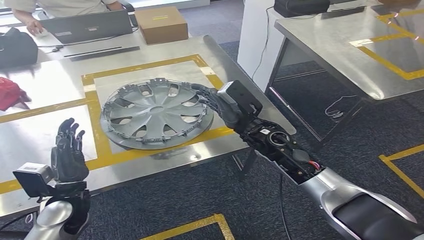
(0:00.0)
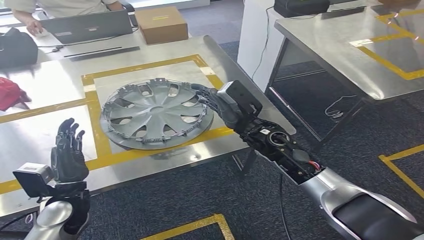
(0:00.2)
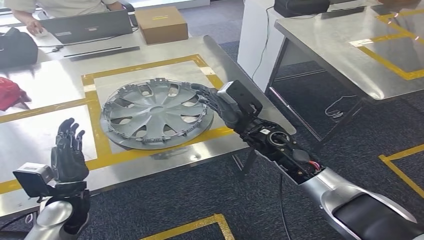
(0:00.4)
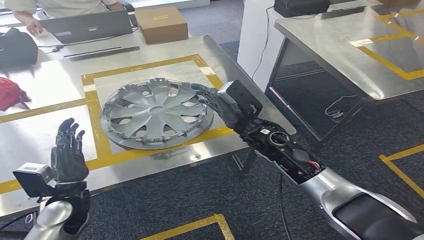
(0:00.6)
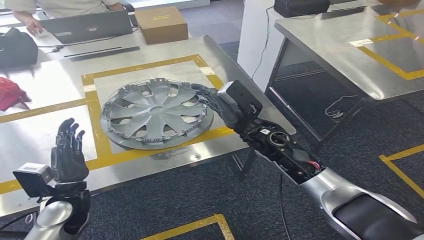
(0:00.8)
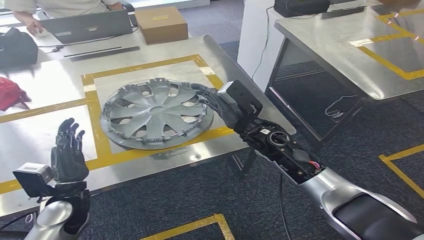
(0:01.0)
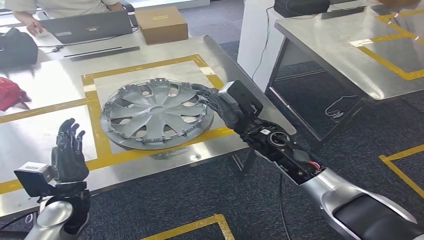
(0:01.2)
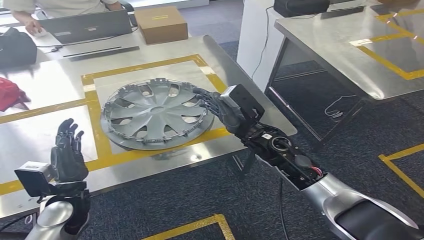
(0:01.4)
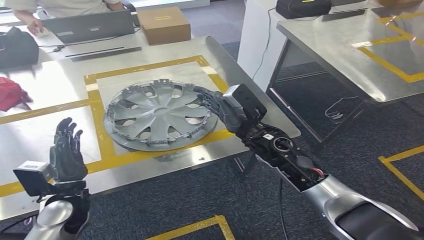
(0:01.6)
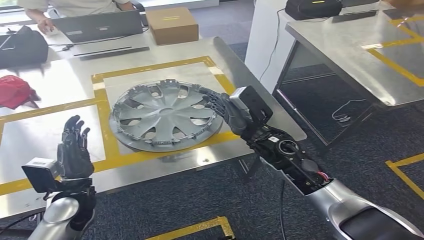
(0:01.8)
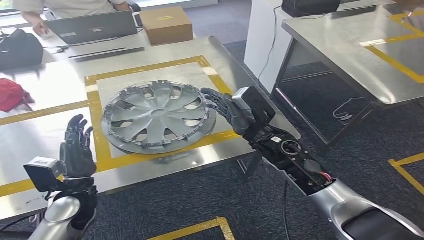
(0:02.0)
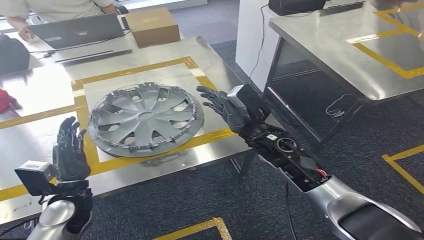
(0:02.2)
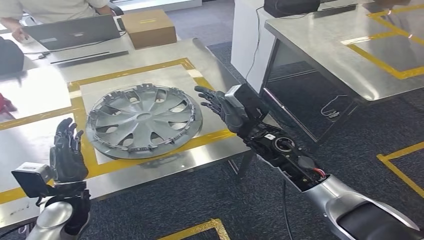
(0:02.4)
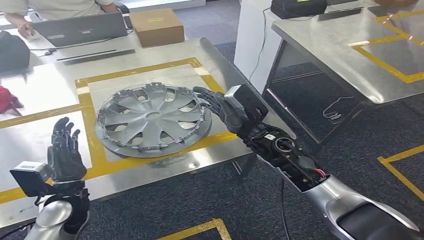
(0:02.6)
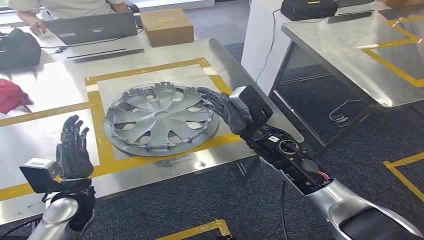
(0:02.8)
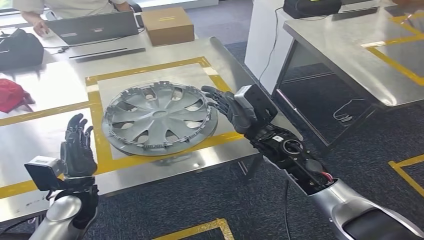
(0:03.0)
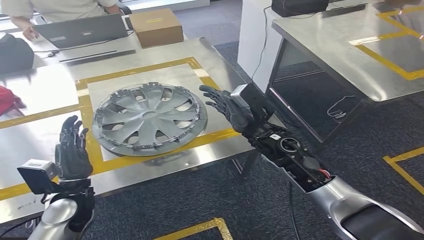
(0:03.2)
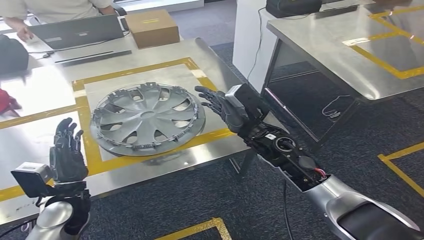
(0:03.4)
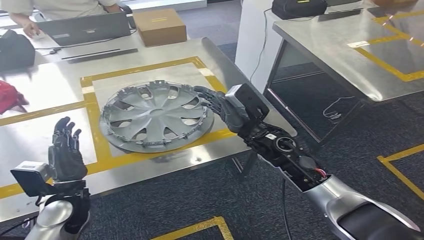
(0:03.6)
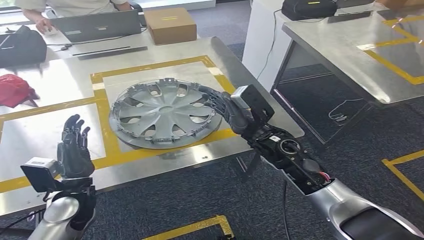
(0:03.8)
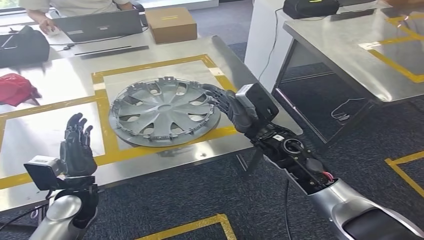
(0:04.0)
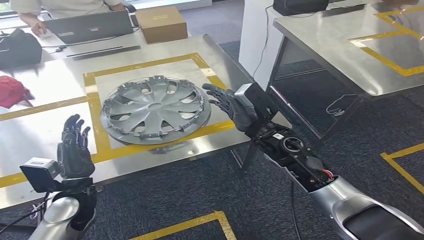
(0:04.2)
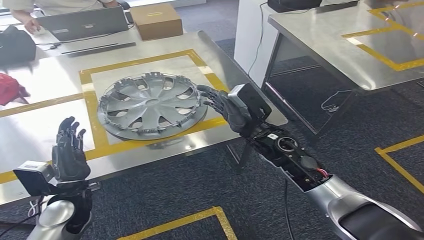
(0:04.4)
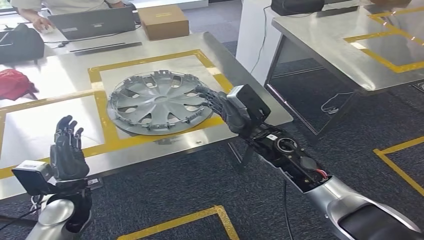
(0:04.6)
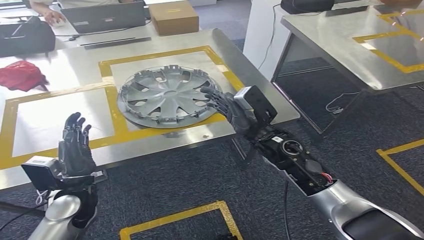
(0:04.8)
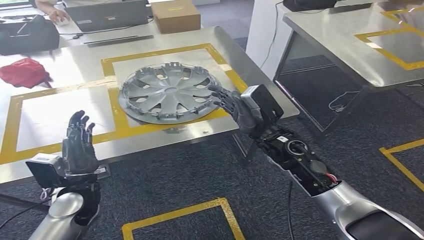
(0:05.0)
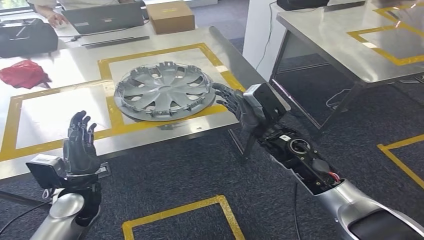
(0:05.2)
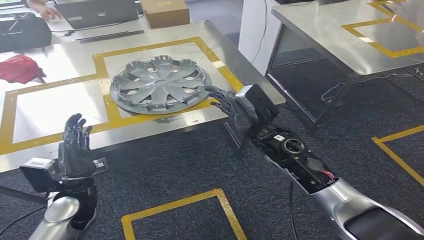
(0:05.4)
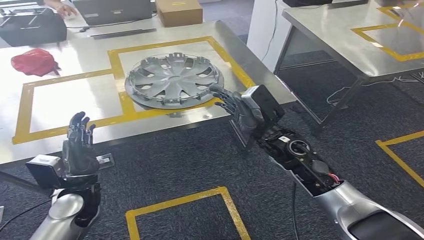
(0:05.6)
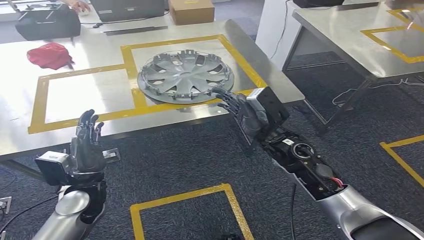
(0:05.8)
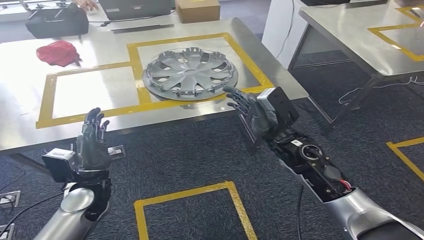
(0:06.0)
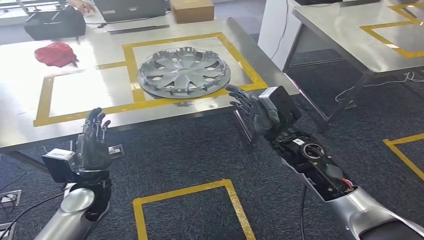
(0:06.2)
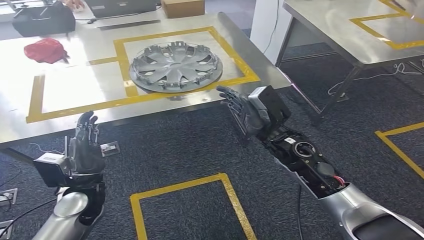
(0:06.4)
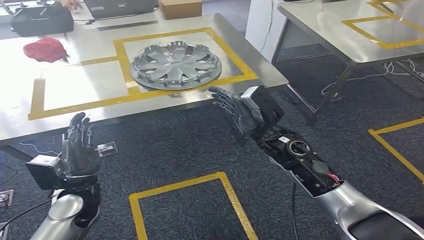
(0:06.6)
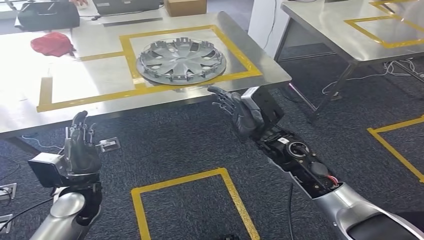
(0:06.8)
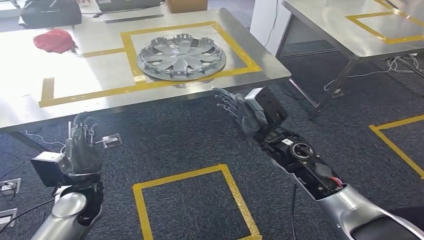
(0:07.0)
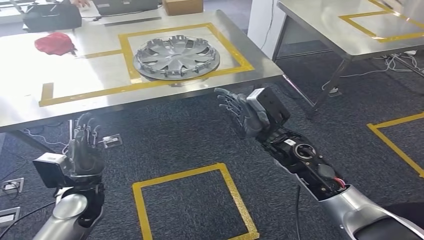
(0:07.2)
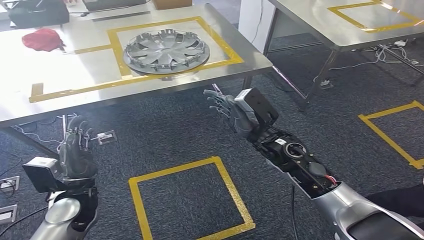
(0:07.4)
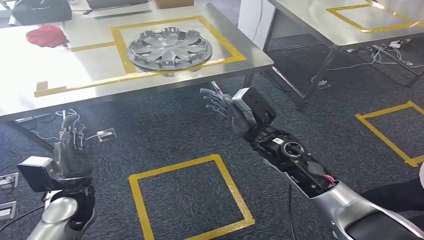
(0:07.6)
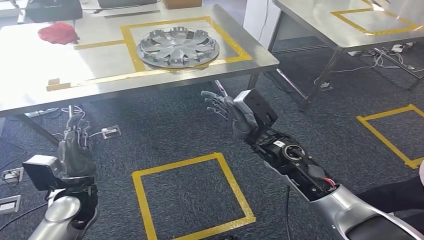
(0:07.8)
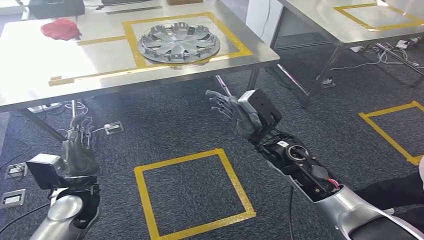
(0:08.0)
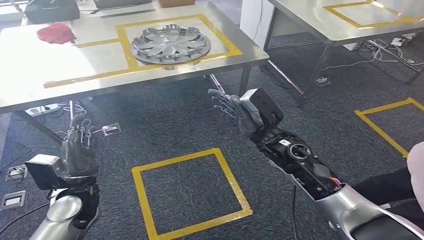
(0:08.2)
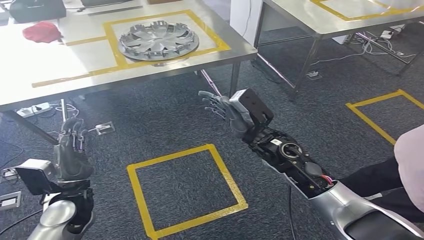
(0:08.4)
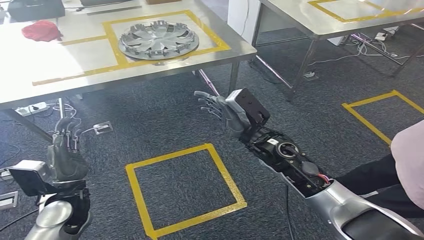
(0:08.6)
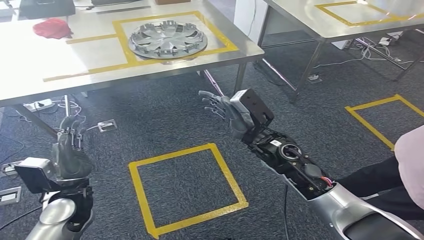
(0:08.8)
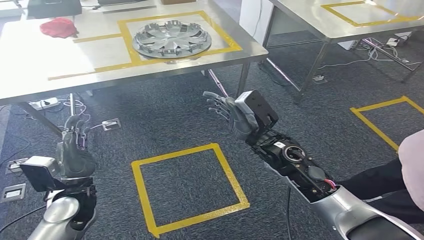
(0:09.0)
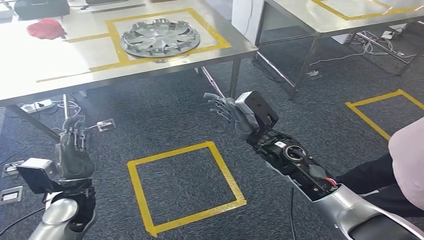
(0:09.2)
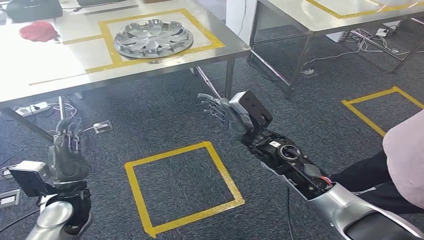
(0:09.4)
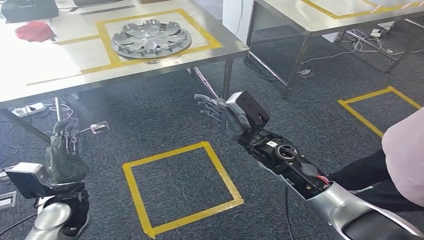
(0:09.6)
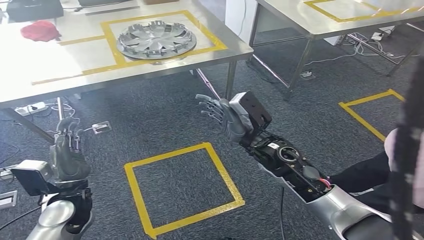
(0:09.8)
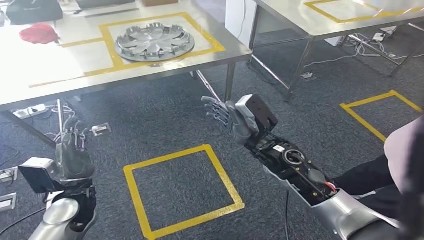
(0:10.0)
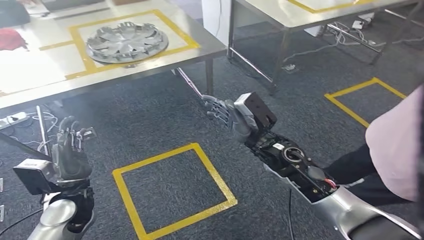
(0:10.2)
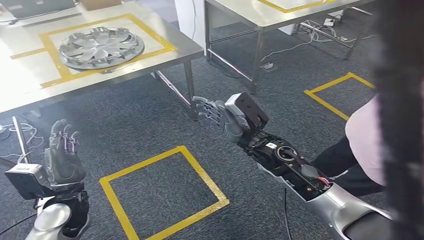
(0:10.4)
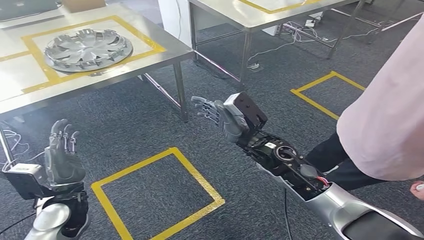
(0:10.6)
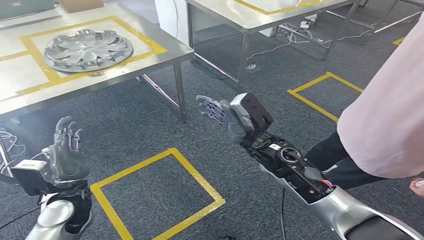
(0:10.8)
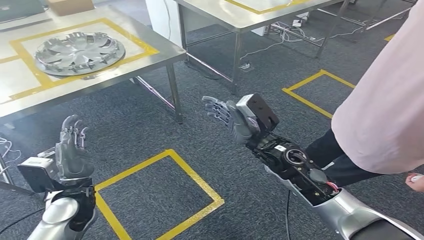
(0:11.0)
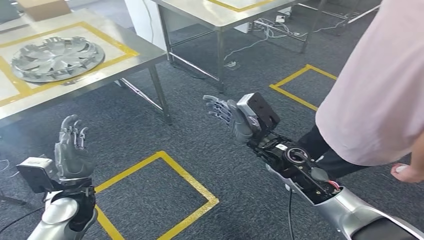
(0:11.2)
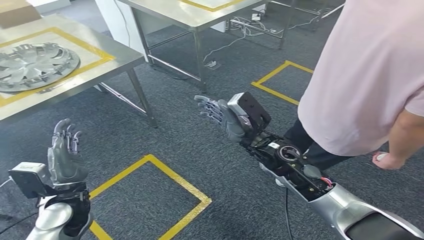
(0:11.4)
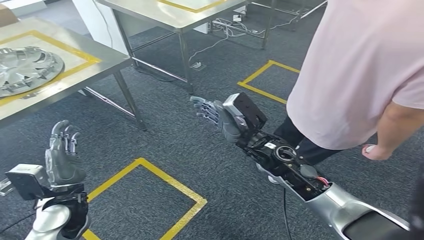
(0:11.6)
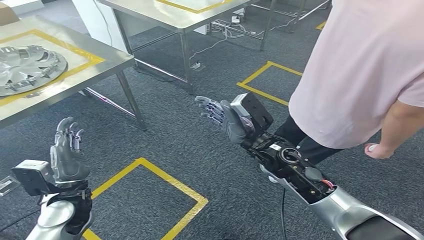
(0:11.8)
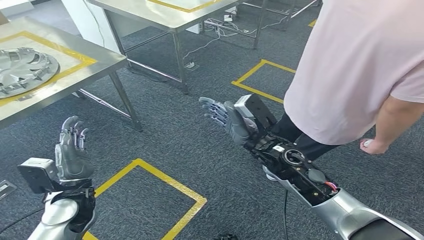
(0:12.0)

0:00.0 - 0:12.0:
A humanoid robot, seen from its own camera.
0:00.0 - 0:01.6: The hands move only a little.

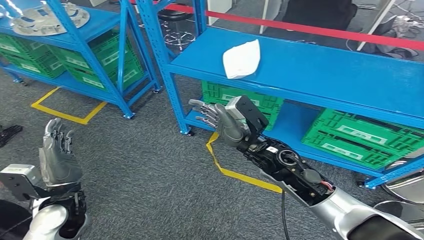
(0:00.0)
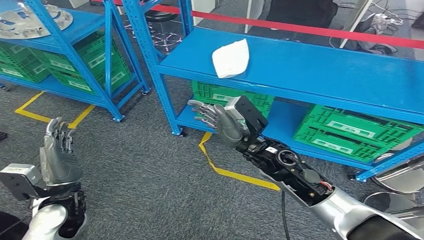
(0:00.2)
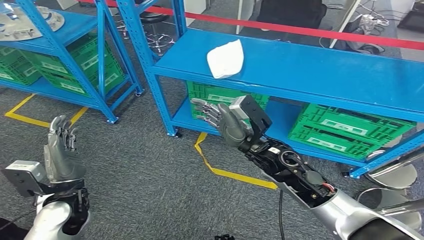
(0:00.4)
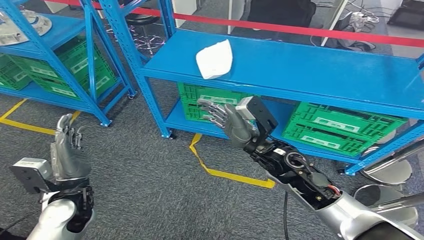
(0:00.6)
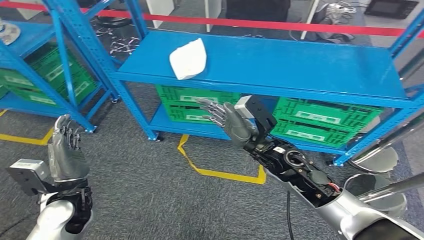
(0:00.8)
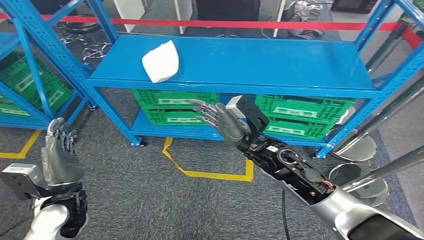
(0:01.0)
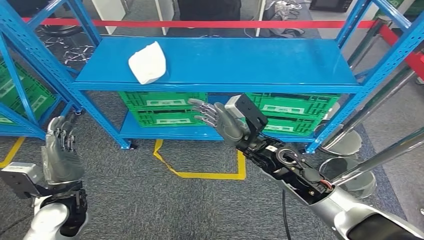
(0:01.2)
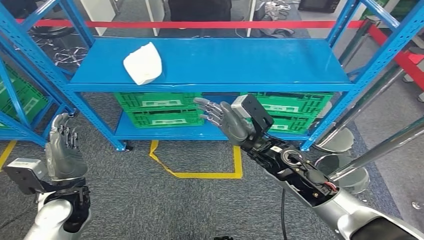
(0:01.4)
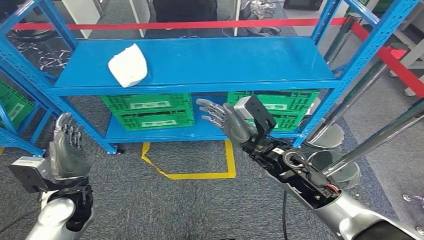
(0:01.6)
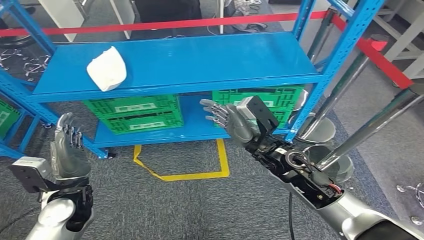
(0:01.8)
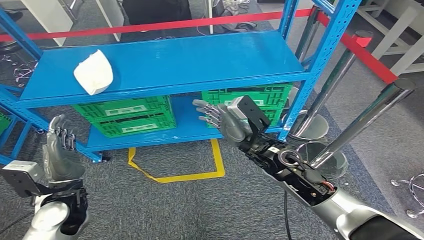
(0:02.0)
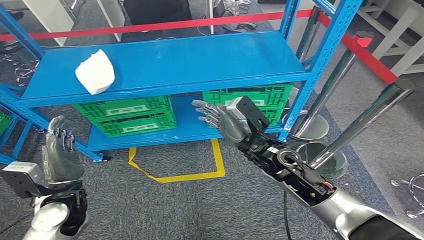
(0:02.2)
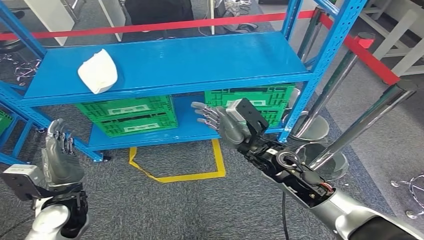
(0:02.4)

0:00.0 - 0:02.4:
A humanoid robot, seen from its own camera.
Step, 0:00.0 - 0:02.4: Move to the initial position at the workbench.

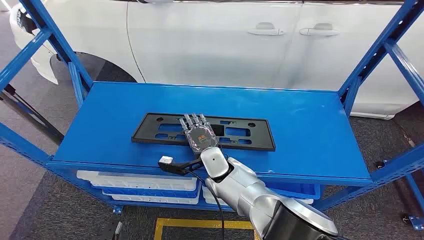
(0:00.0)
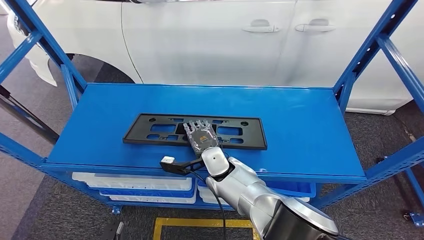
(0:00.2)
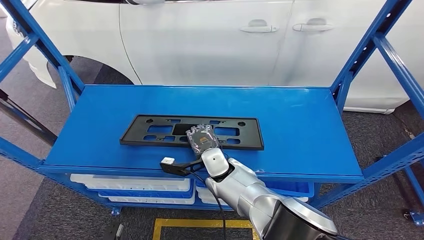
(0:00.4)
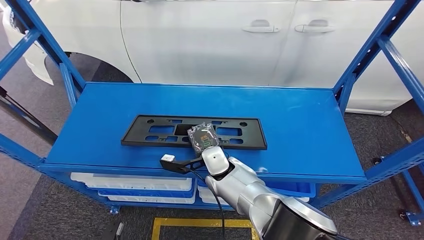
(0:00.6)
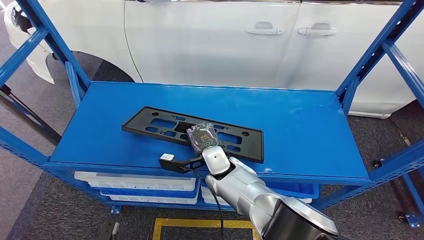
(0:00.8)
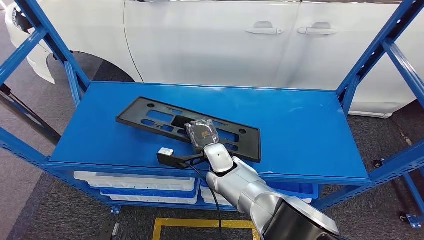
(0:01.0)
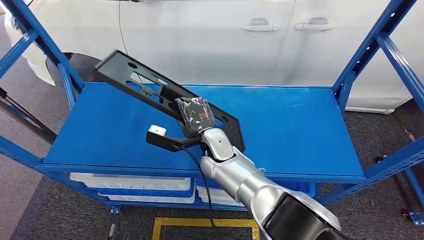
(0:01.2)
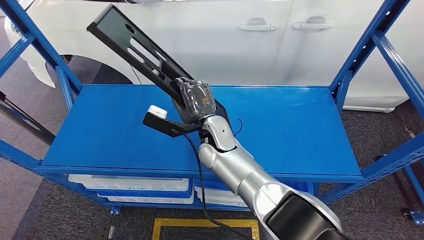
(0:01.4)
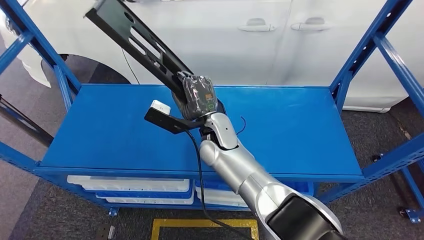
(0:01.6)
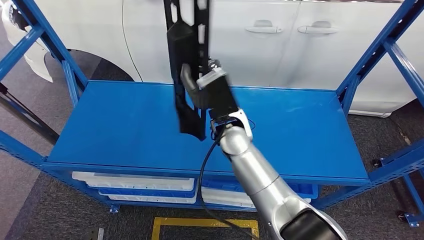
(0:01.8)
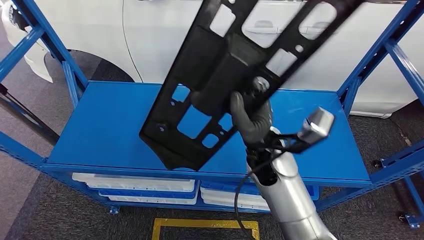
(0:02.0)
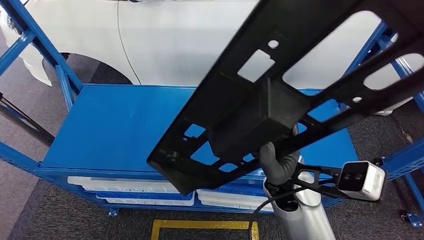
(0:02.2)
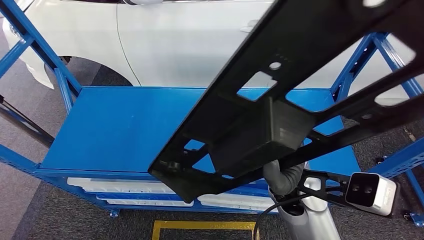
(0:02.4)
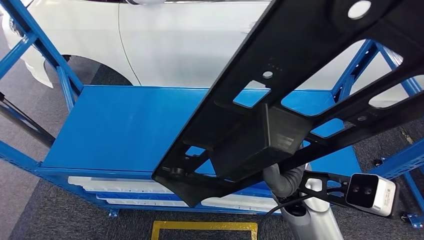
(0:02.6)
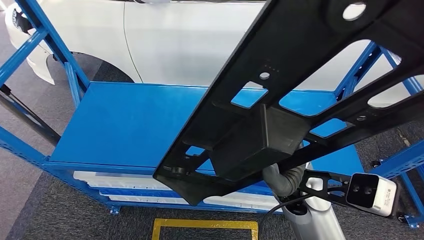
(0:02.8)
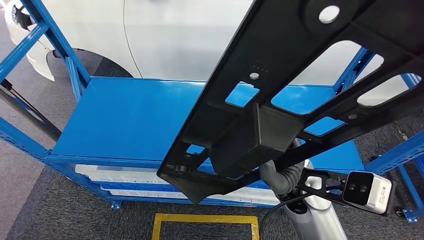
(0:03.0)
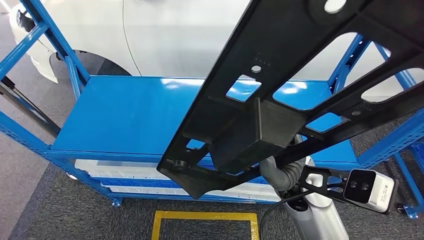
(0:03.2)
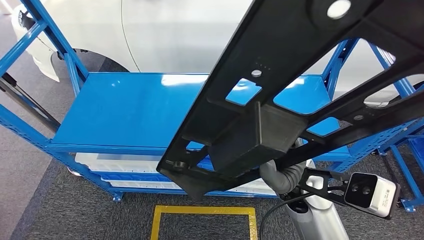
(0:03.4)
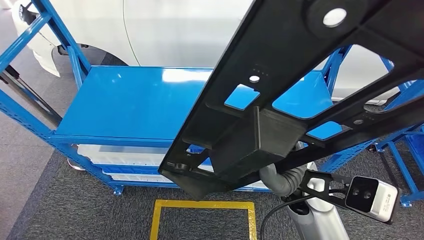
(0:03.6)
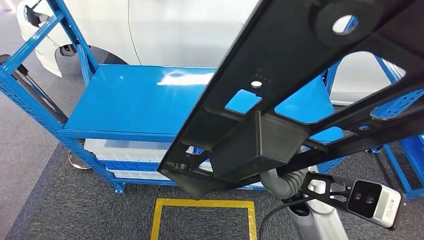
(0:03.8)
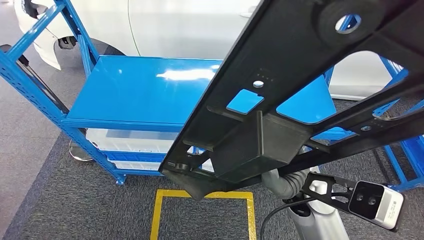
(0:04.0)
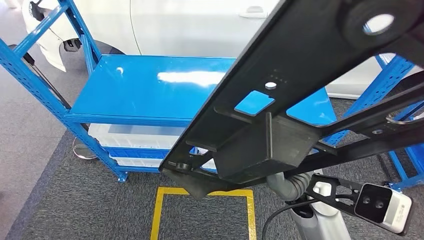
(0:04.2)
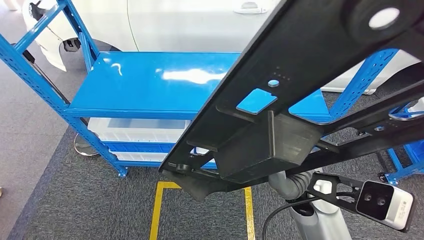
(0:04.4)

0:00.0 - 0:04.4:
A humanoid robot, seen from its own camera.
Step, 0:00.0 - 0:02.6: Pick up the small parts from the shelf.
